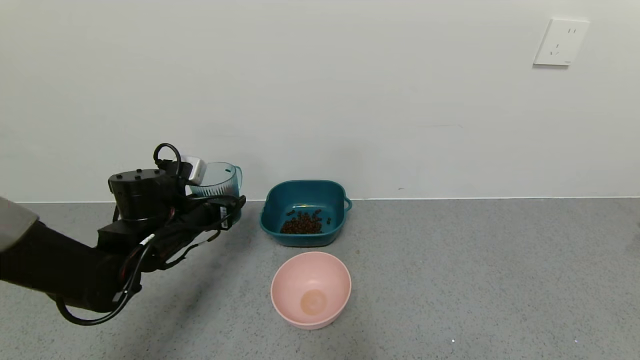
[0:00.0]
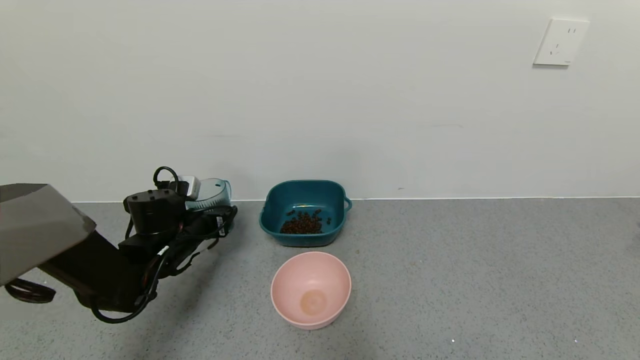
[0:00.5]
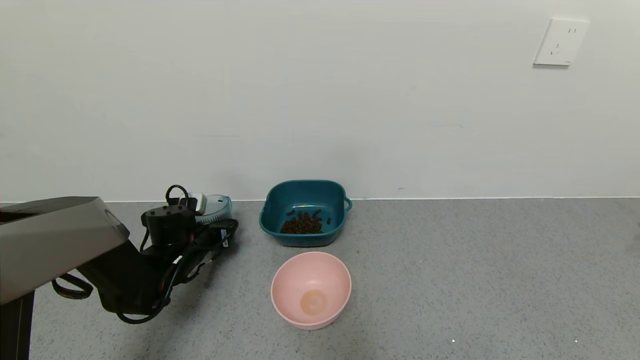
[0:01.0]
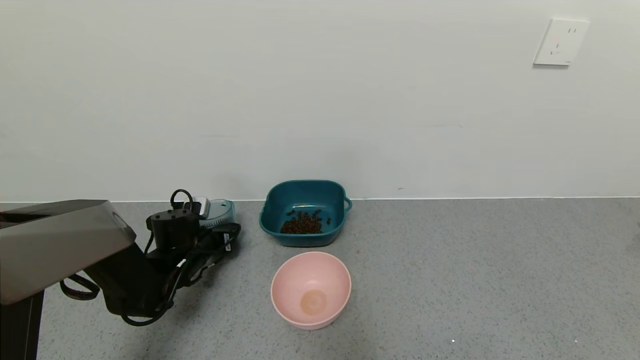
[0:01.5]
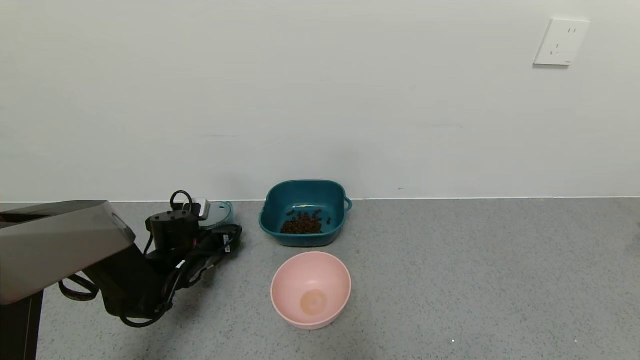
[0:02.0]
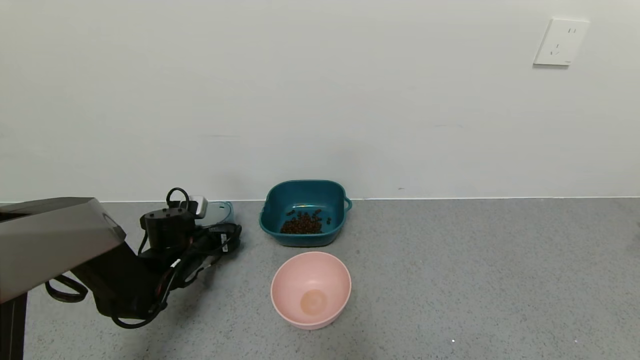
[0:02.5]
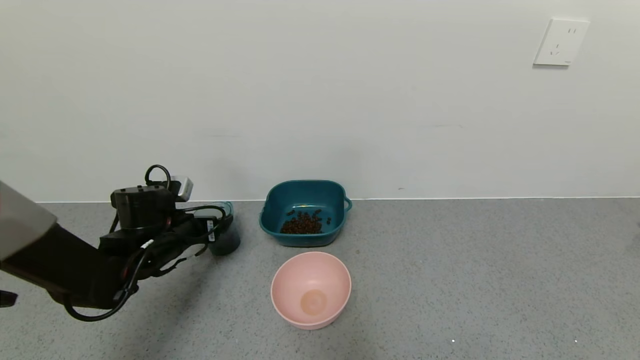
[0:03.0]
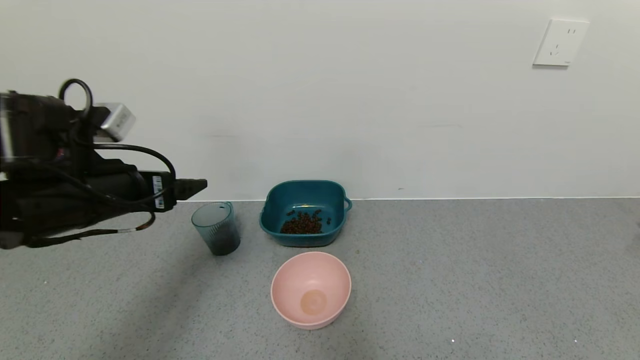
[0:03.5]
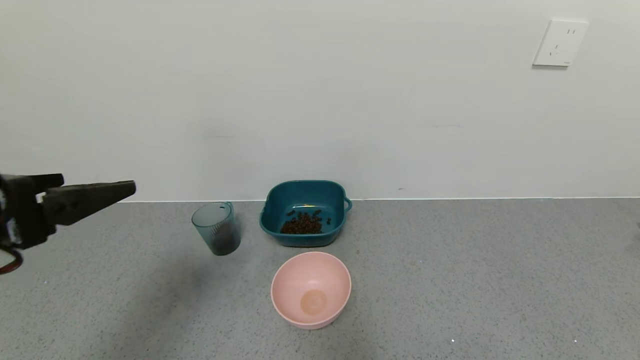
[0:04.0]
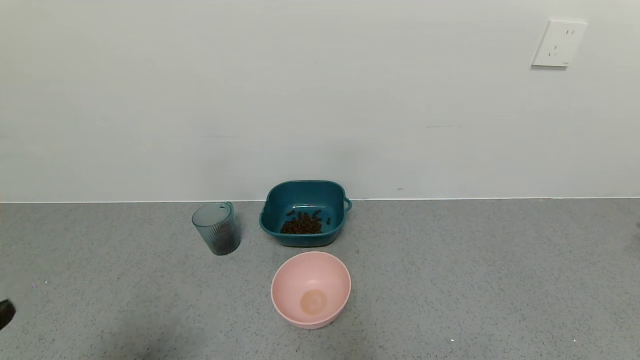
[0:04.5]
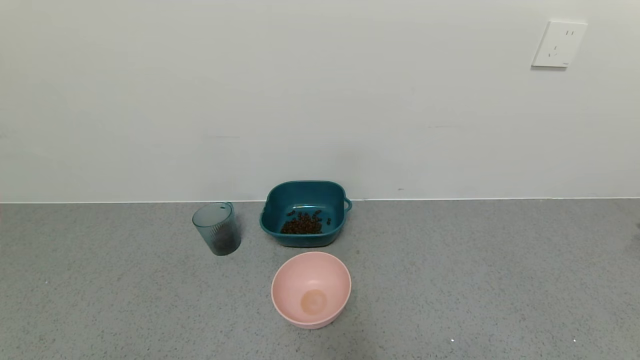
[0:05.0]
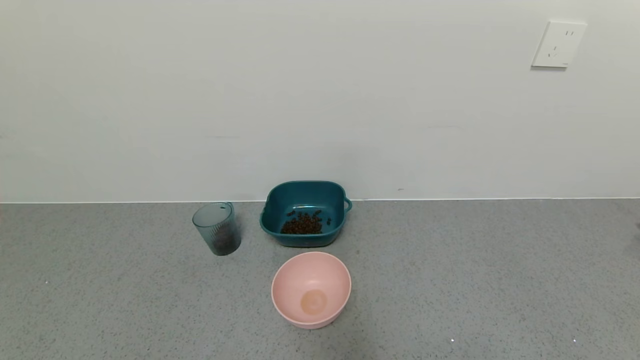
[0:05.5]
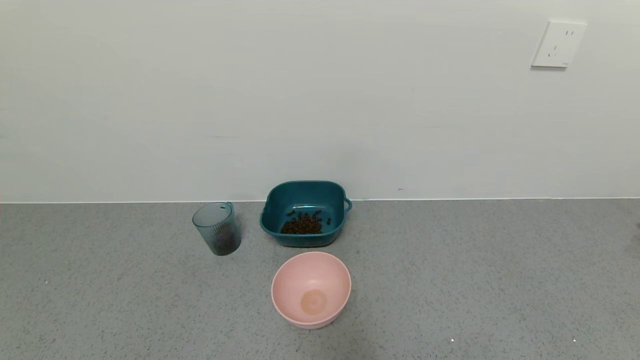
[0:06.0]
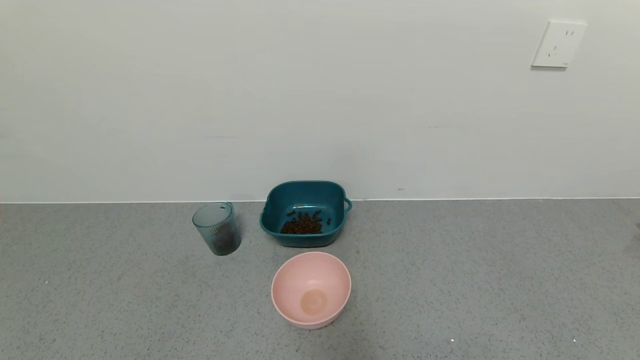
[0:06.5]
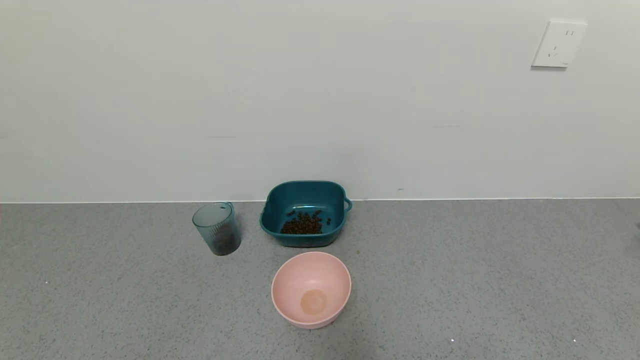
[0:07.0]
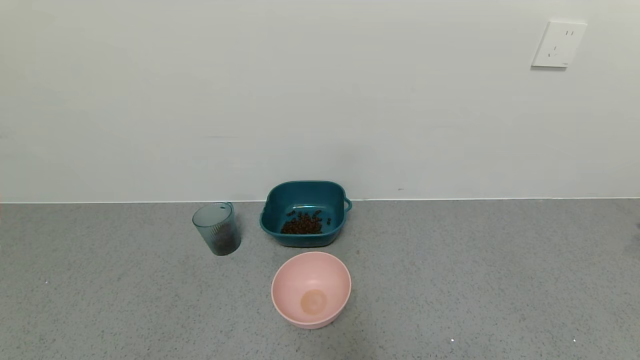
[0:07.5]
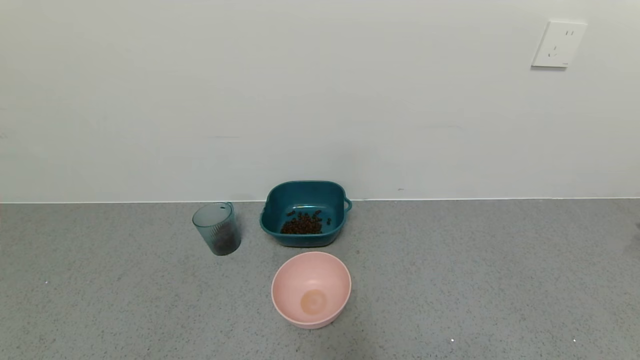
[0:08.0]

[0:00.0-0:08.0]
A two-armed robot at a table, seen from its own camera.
Task of the whole recording: use a gripper to pick up the cup and pour the solid into a bowl or tray.
Step, 0:00.0 to 0:03.0: Place the glass cup with the left gripper.
0:00.0 to 0:02.0: The left gripper goes about 10 cm downward, and opens its fingers.
0:02.0 to 0:04.0: The left gripper moves upward and backward, approximately 35 cm, and opens its fingers.
0:04.0 to 0:06.0: The left gripper moves backward and downward, about 25 cm.

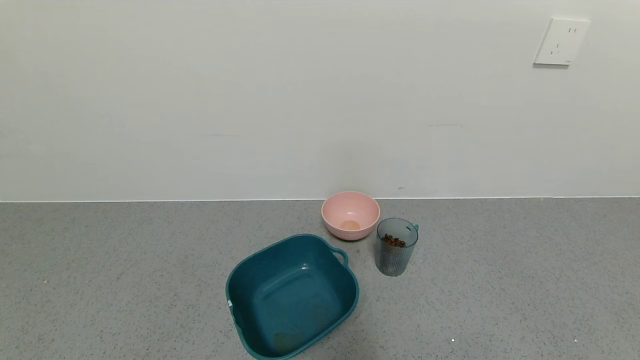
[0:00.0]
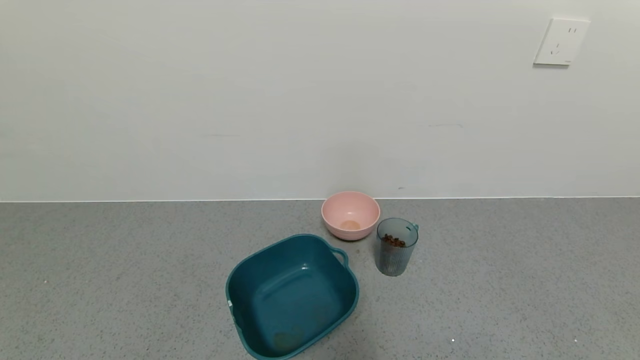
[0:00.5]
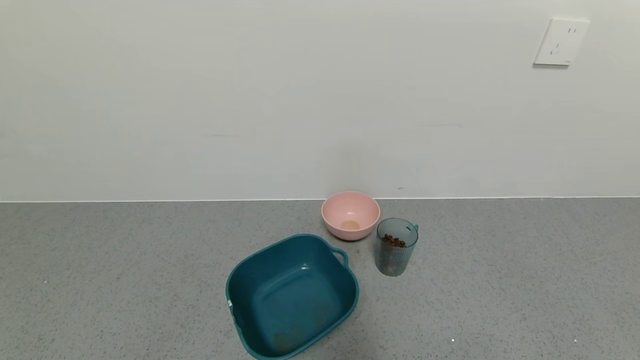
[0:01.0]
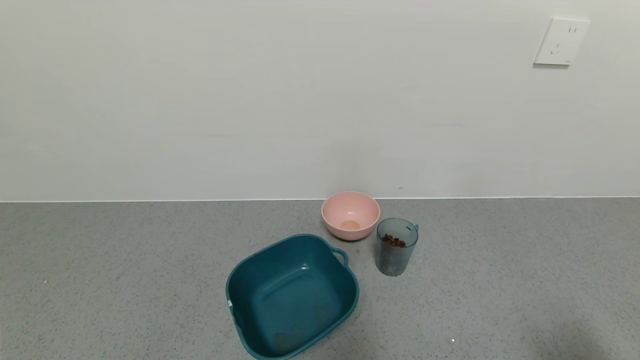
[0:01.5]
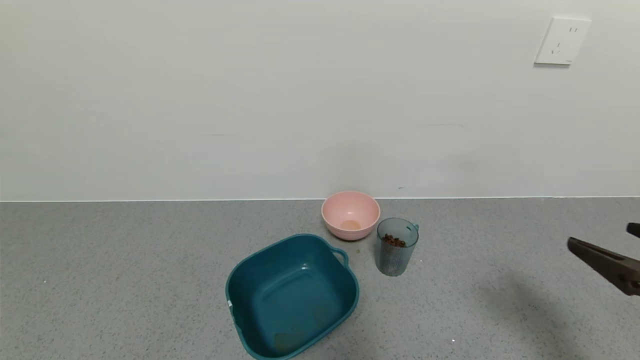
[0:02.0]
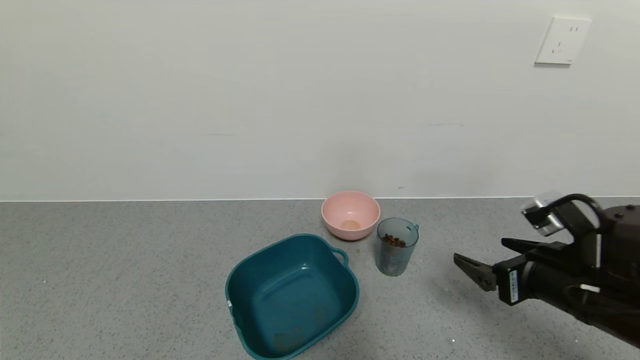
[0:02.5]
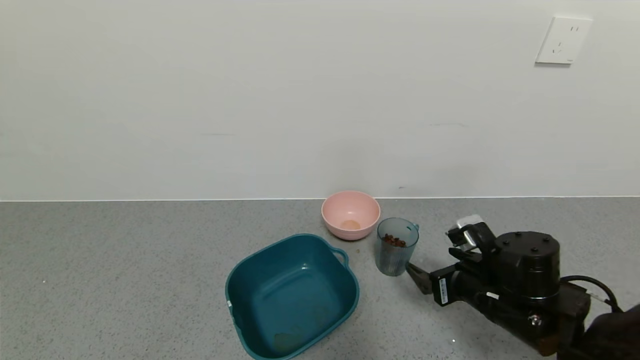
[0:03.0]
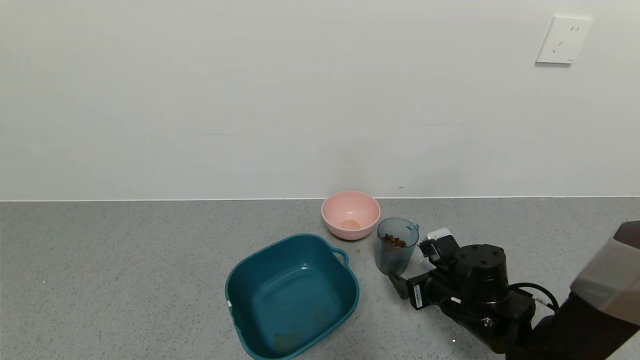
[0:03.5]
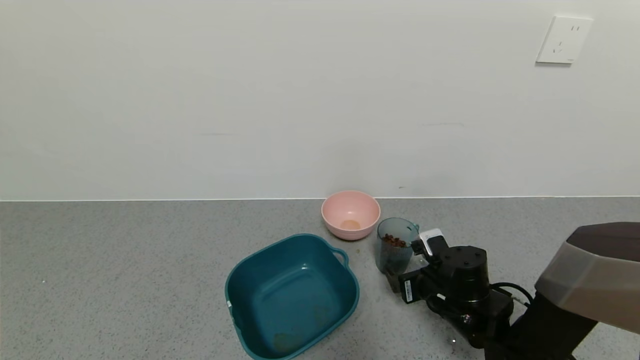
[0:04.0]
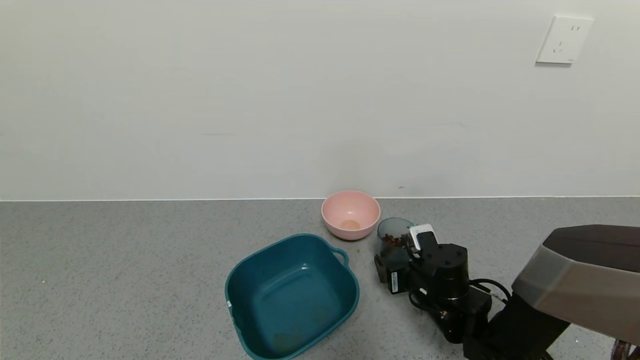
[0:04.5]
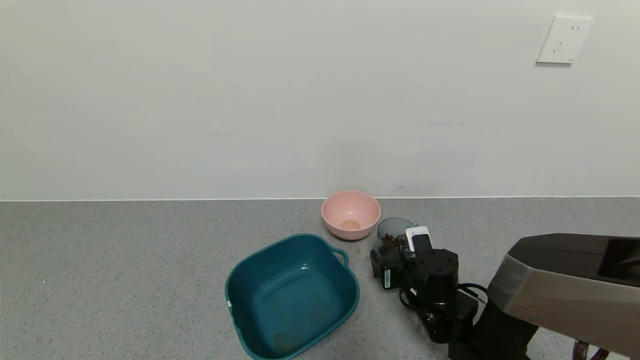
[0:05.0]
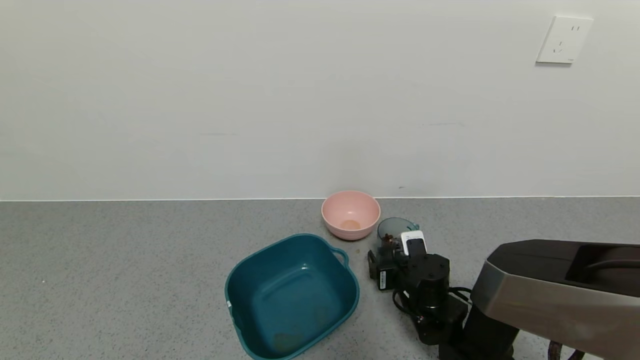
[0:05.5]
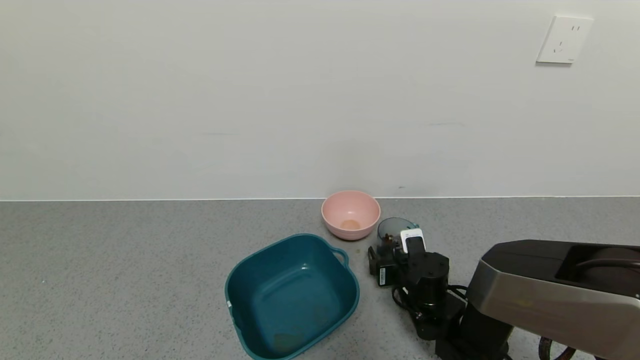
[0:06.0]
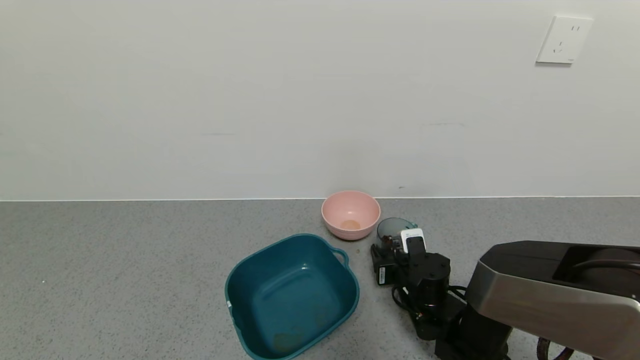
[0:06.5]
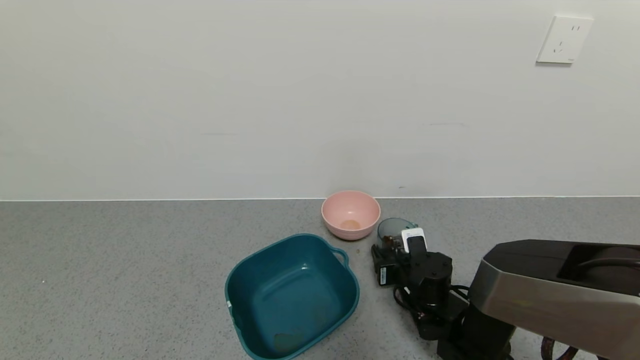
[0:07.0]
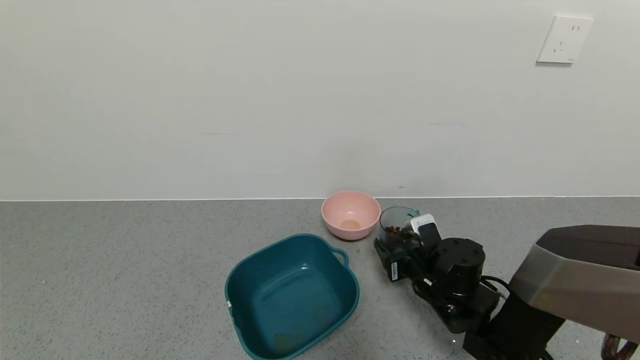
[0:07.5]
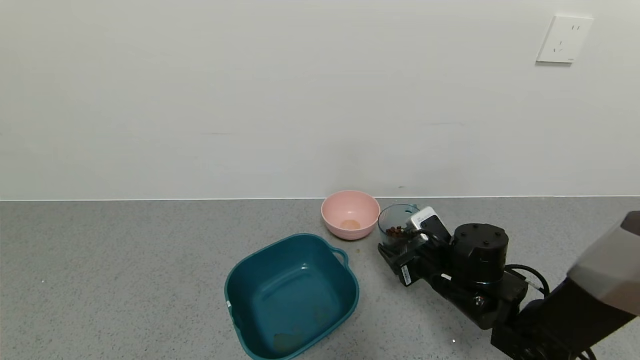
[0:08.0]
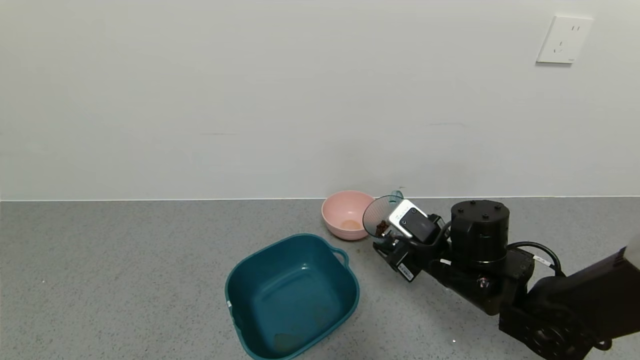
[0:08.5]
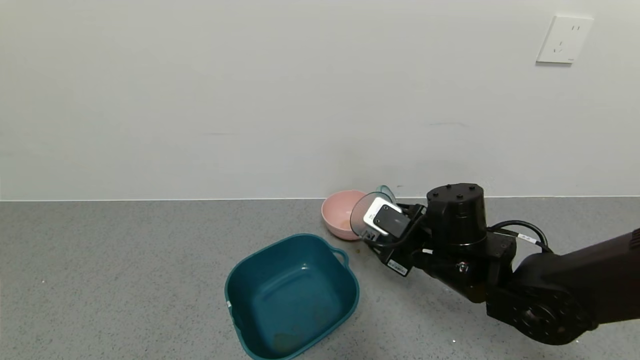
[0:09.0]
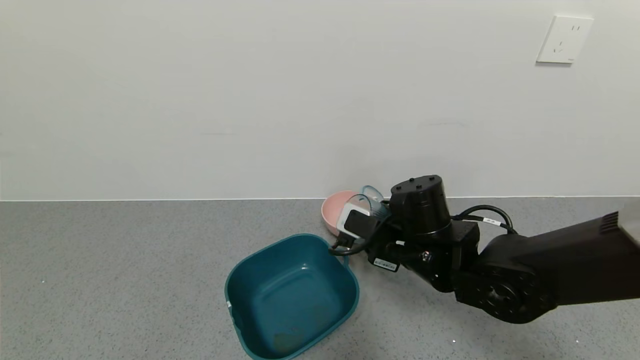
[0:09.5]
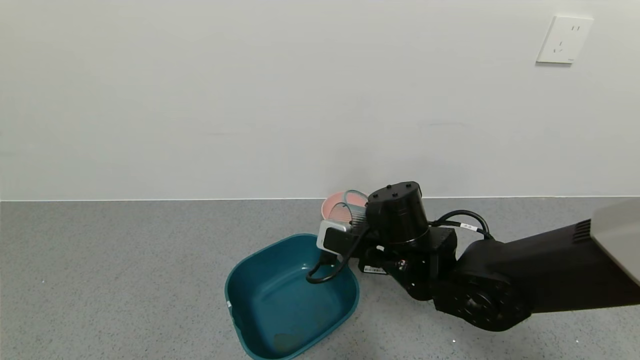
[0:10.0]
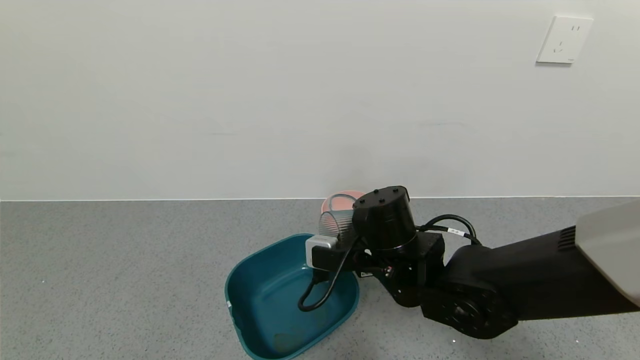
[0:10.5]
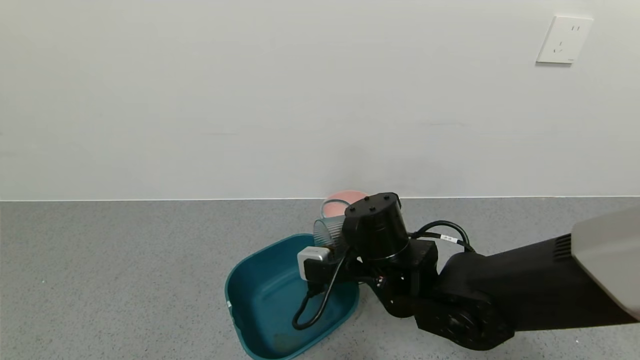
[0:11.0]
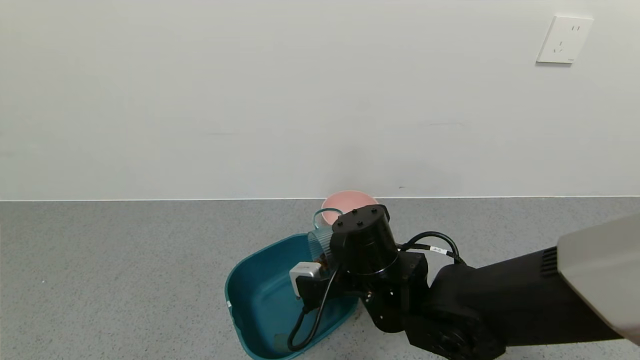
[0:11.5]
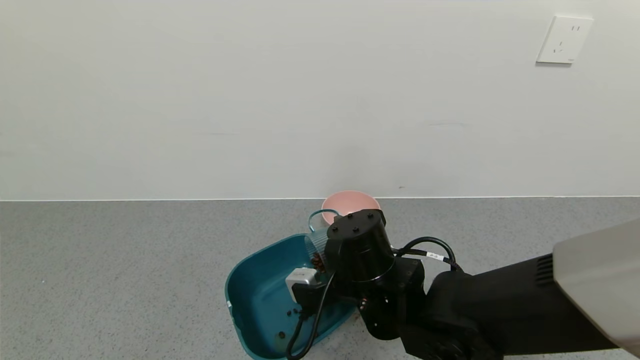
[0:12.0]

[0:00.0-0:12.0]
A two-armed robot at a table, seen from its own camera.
Task of the whole recording: use a gripper to pick up the cup and pour the solid into a bowl or tray.
Step, 0:00.0 to 0:07.0: Grasp the glass of coffee beans with the right gripper.
0:00.0 to 0:02.0: The right gripper heads forward and upward, covering roughly 20 cm.
0:02.0 to 0:04.0: The right gripper travels downward, forward and to the left by about 30 cm.
0:04.0 to 0:06.0: The right gripper shifts by approximately 5 cm.
0:06.0 to 0:08.0: The right gripper is displaced upward by approximately 10 cm, and closes up.
0:08.0 to 0:10.0: The right gripper goes some 10 cm to the left and upward.
0:10.0 to 0:12.0: The right gripper shifts by about 5 cm.
